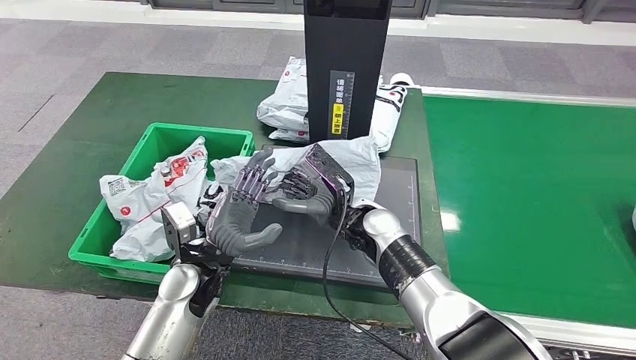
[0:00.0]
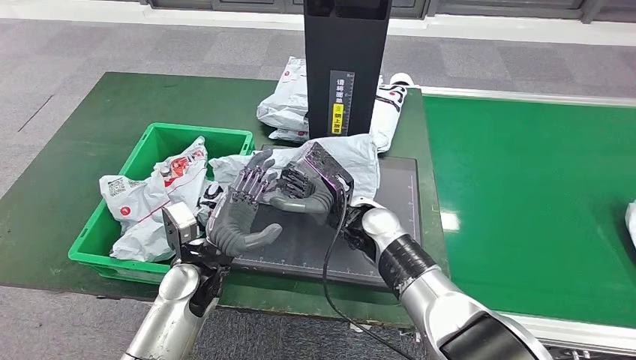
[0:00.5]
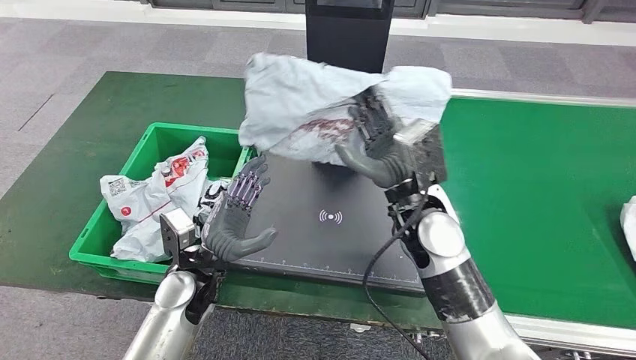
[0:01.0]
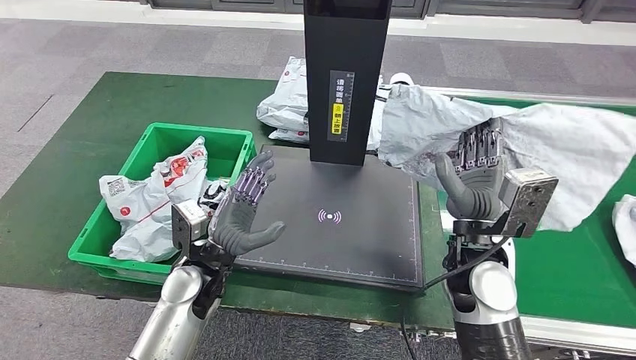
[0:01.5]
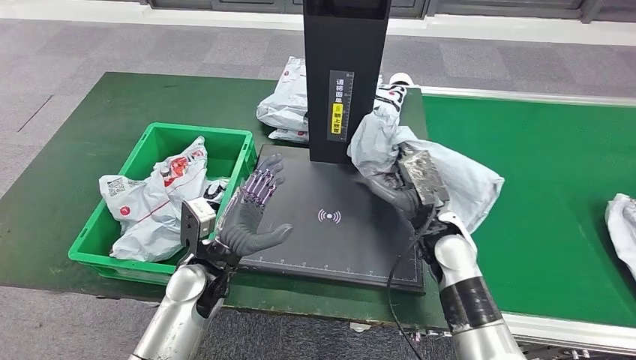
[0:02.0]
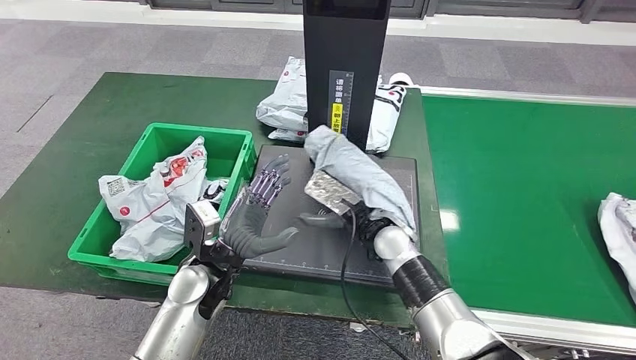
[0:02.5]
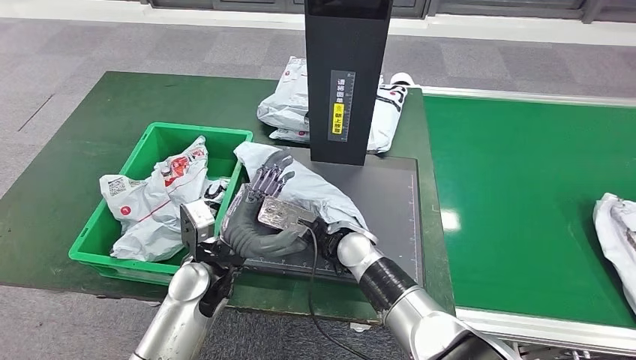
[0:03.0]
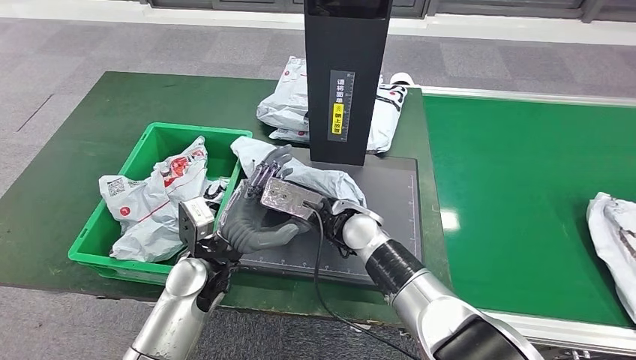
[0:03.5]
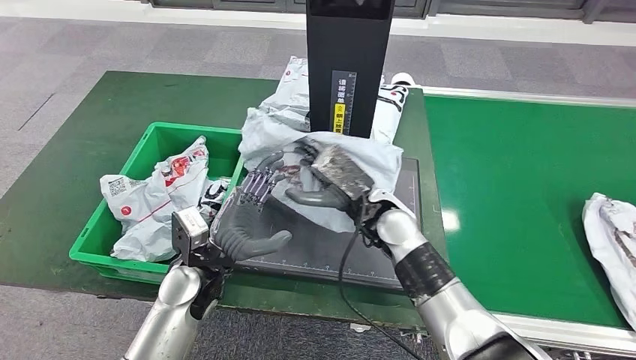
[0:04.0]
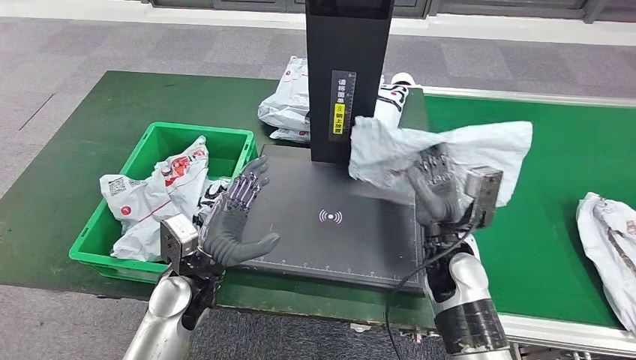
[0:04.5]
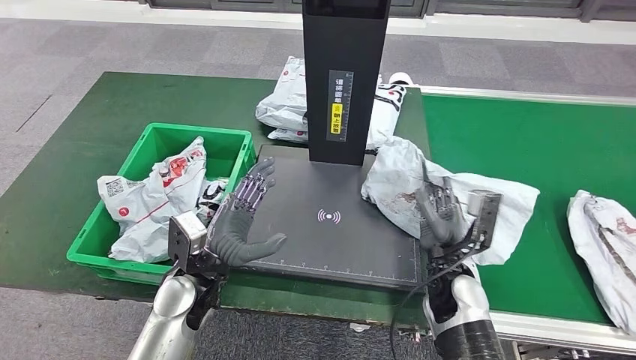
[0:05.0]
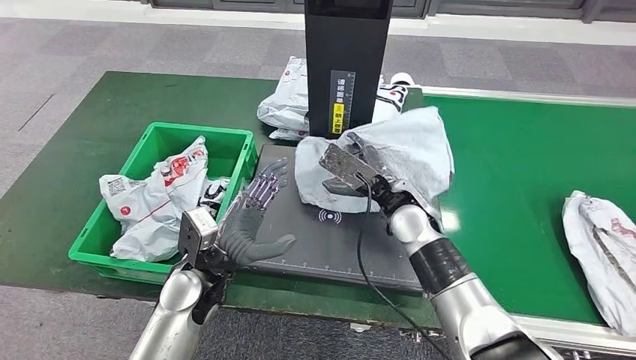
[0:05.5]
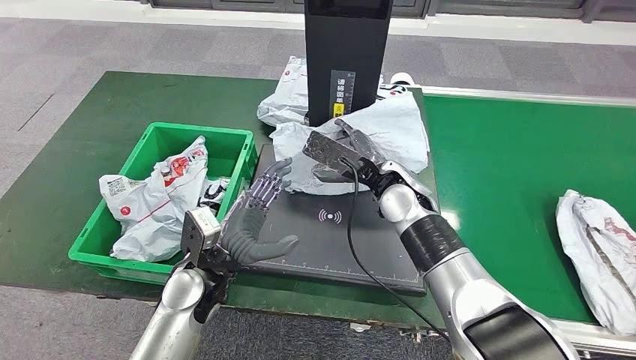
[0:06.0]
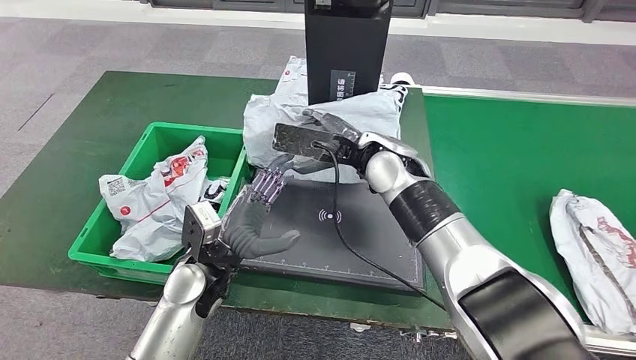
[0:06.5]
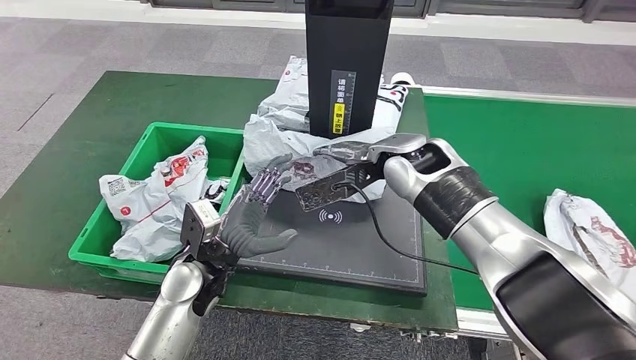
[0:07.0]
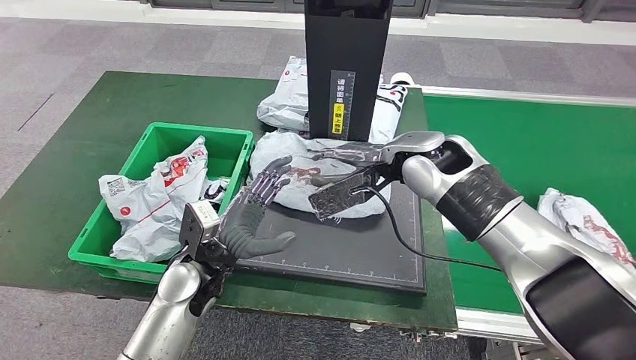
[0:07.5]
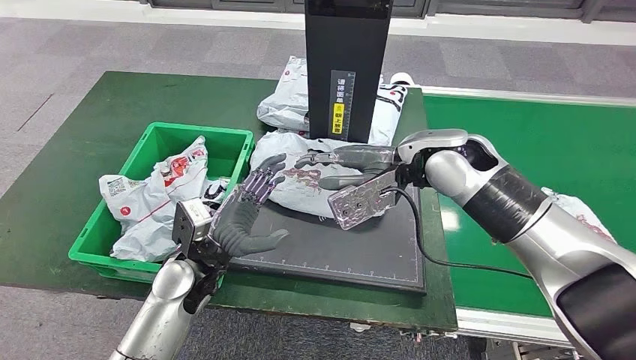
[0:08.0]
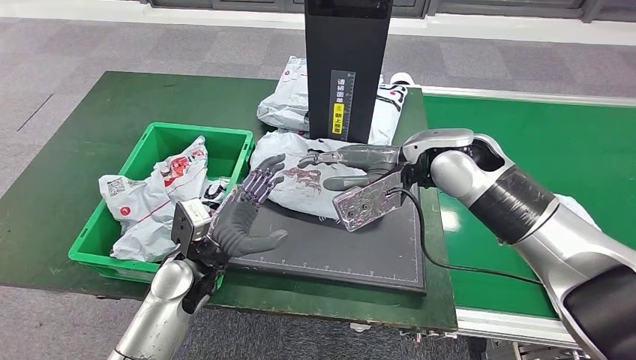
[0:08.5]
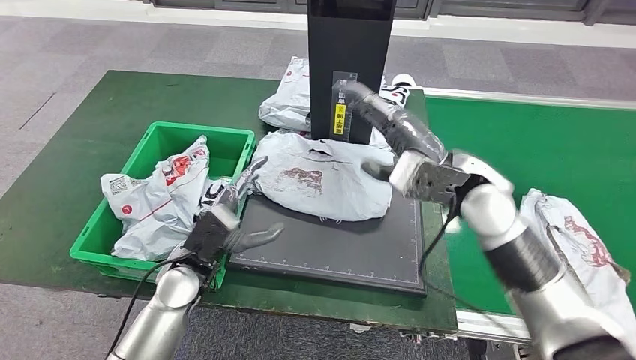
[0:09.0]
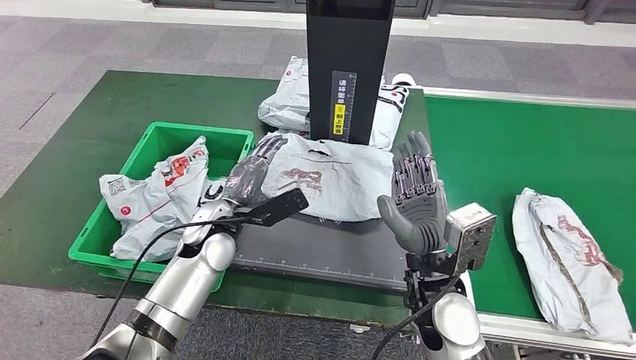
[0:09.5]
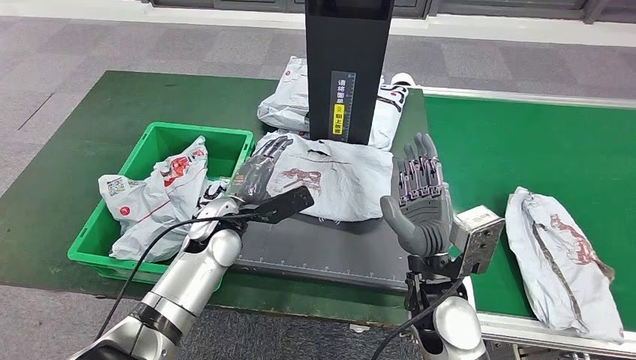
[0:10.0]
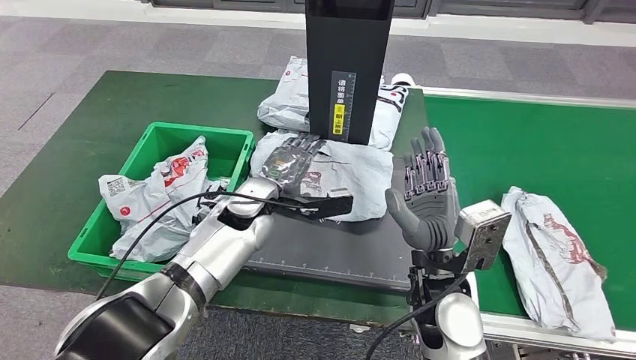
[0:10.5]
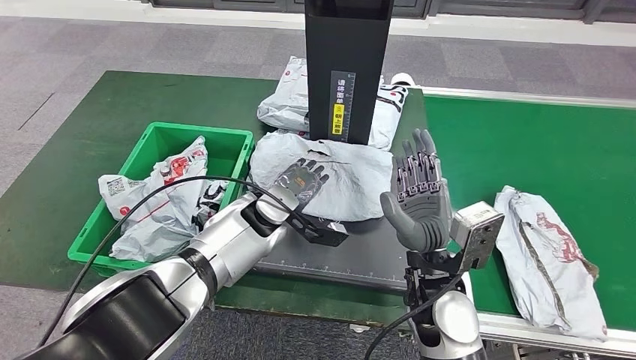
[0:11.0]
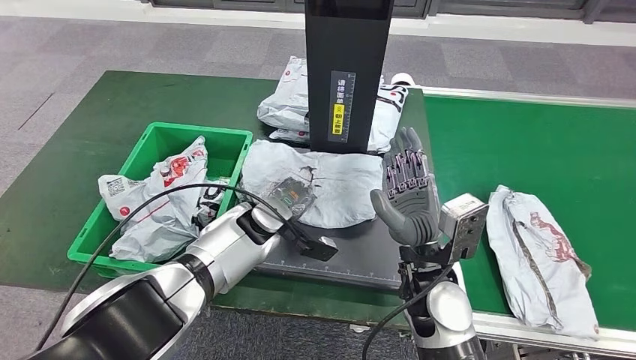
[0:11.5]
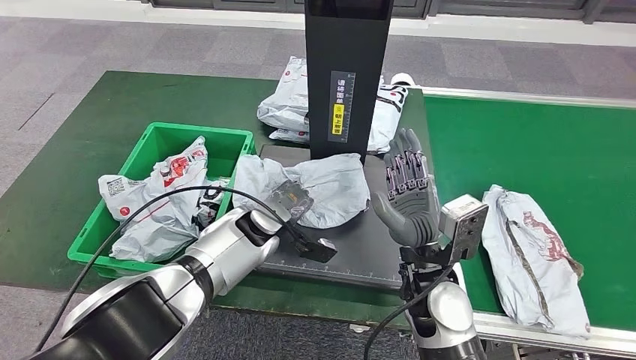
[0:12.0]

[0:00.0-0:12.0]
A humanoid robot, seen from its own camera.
Step, 0:00.0 to 0:08.0: Place the parcel onto the inbound machine.

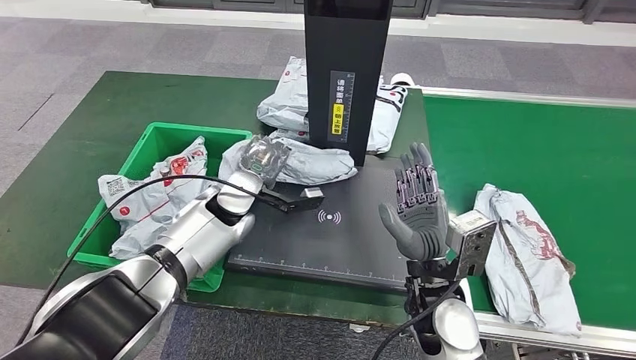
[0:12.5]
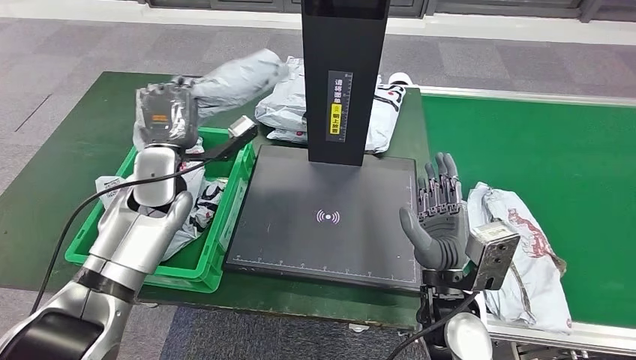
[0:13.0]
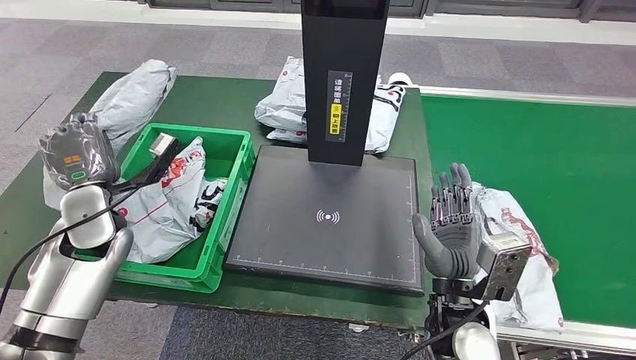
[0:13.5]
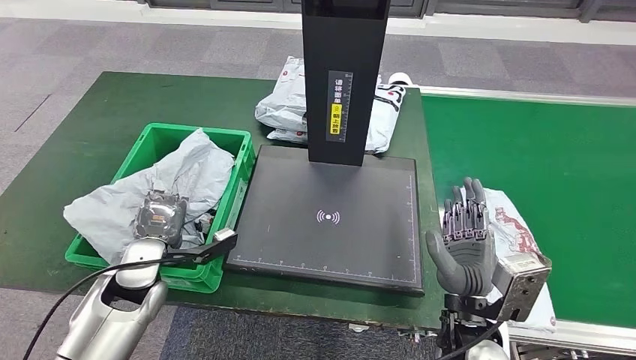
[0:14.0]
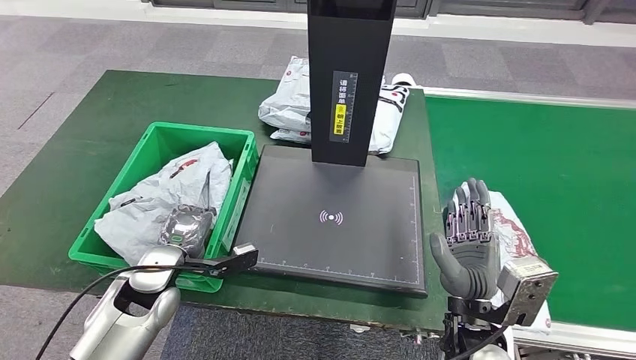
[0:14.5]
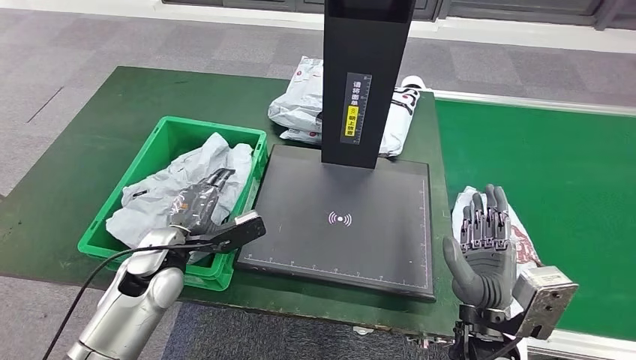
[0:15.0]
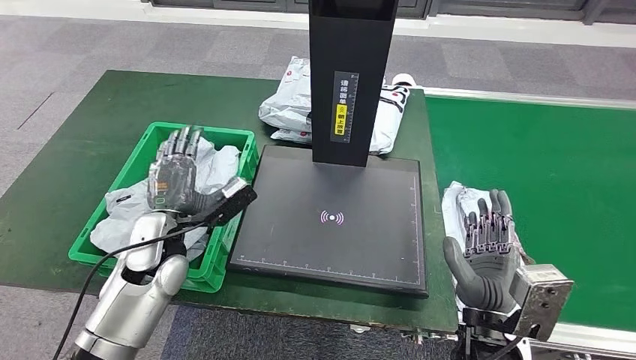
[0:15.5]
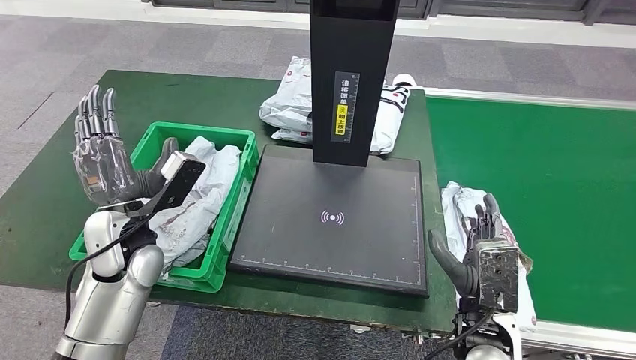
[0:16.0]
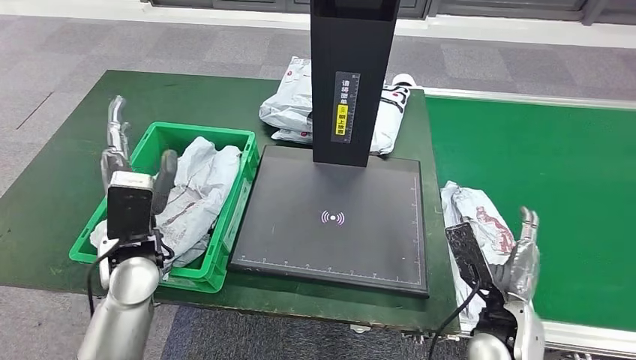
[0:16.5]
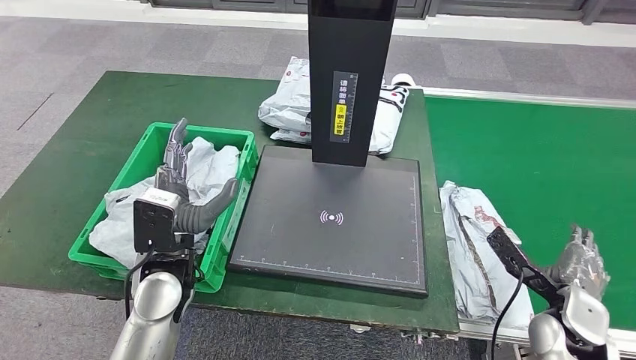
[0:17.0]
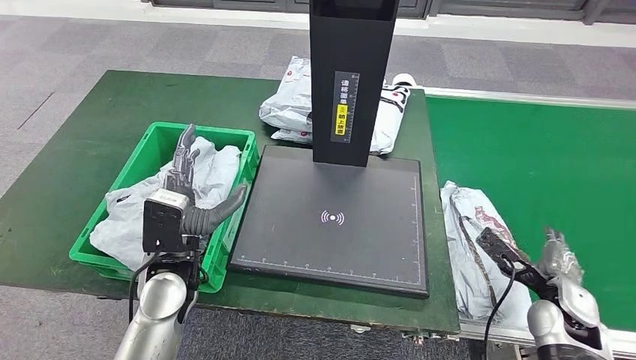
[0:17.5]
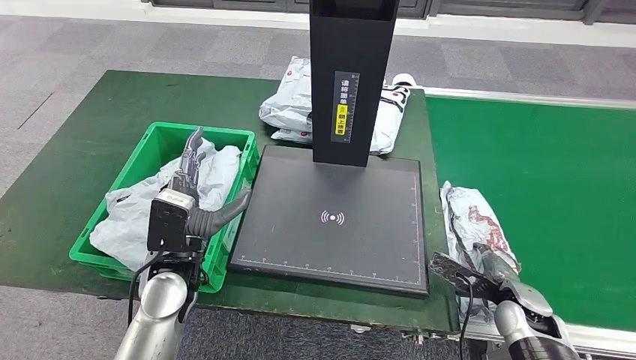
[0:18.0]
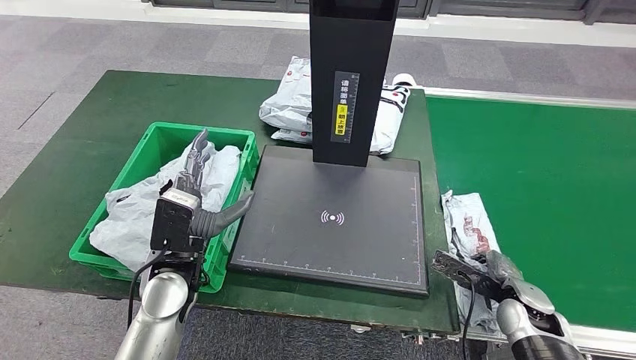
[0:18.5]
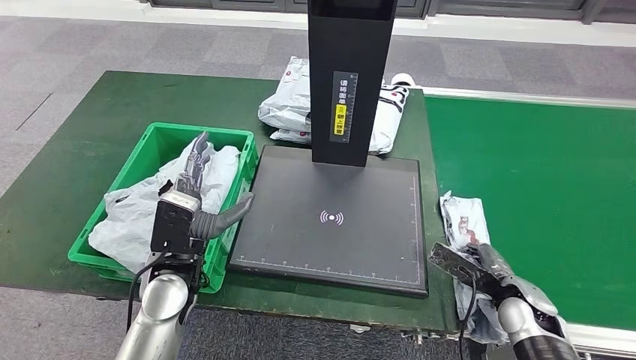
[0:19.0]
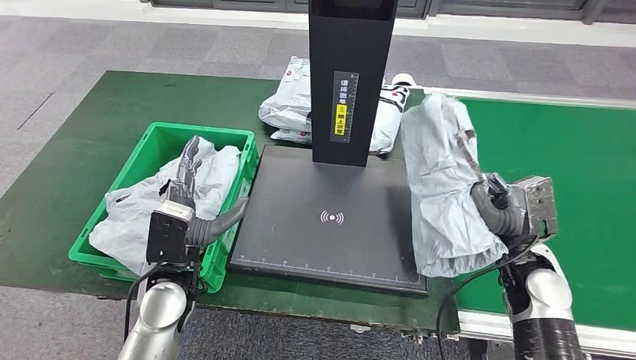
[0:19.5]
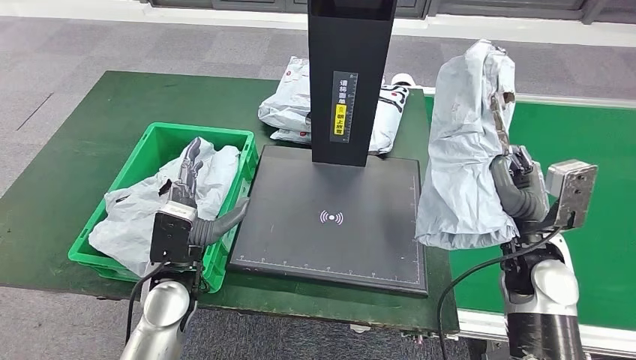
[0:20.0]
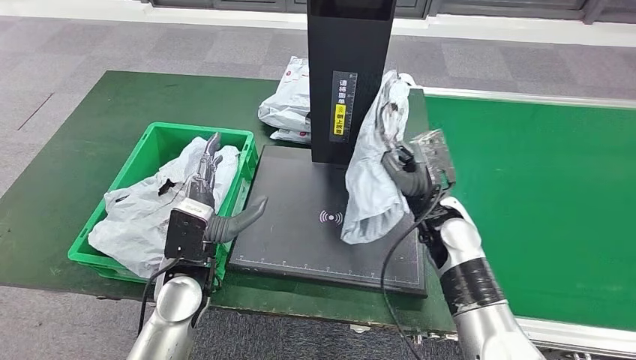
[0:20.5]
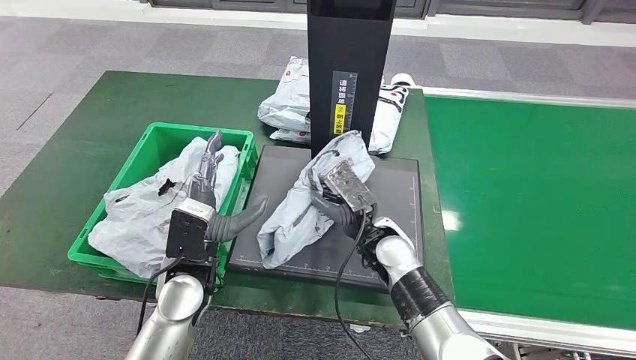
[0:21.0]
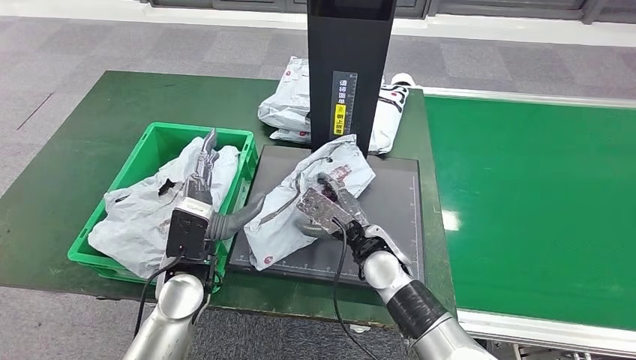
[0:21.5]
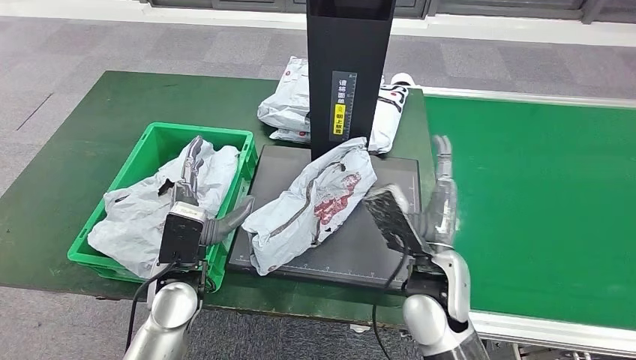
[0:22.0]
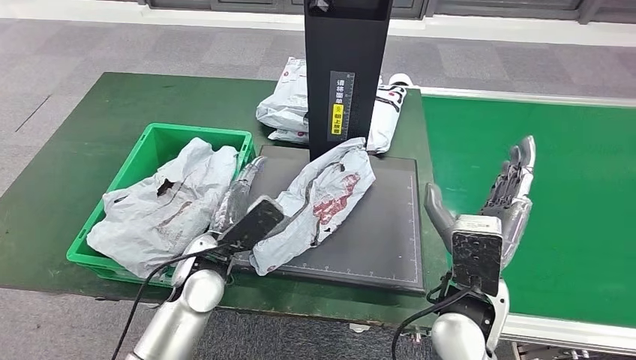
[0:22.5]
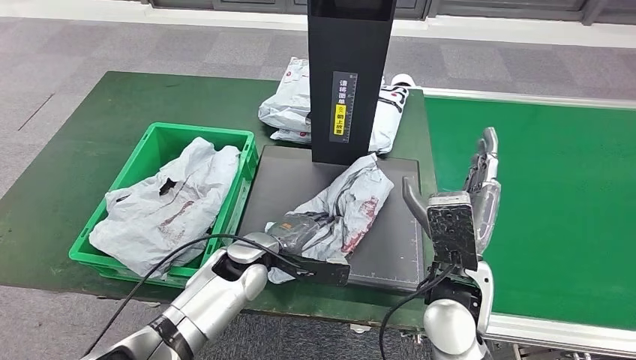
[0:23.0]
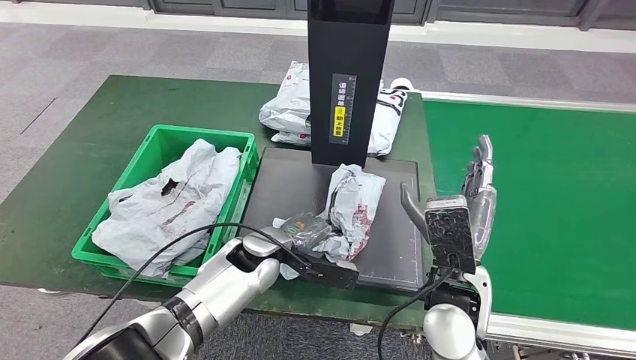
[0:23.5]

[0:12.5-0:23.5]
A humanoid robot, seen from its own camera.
Step, 0:13.5 to 0:16.0: Place the parcel into the delivery box.
Step, 0:16.5 to 0:20.0: Pick up the parcel from the conveyor belt.
Step, 0:20.5 to 0:22.0: Place the parcel onto the inbound machine.
0:14.5 to 0:16.0: The left hand travels upward by about 10 cm.
0:16.0 to 0:18.0: The left hand moves to the right, about 10 cm; the right hand is displaced to the right, downward and forward by about 20 cm.
0:18.0 to 0:20.0: The right hand moves upward, roughly 15 cm.
